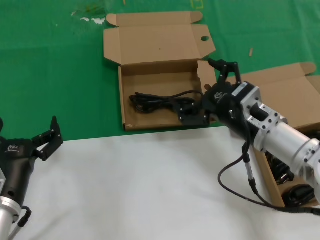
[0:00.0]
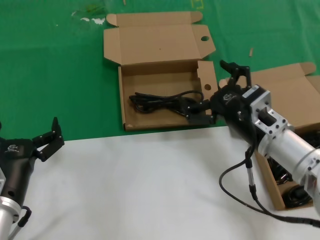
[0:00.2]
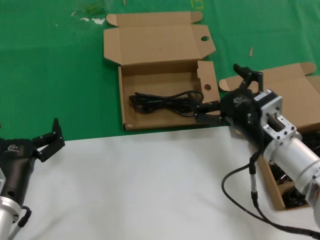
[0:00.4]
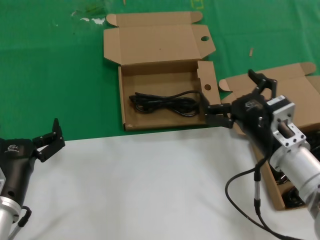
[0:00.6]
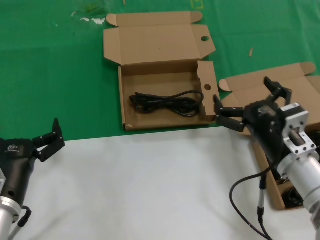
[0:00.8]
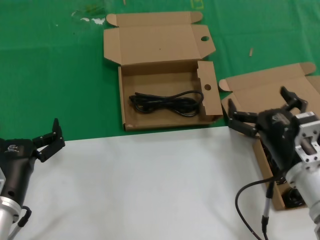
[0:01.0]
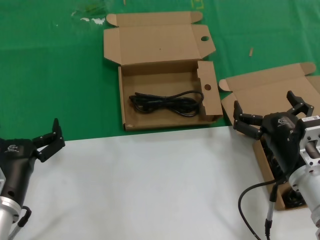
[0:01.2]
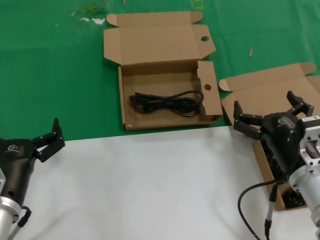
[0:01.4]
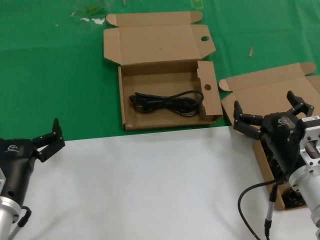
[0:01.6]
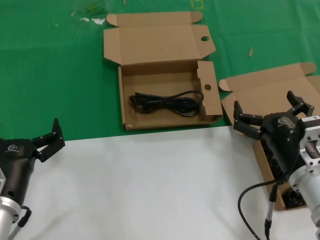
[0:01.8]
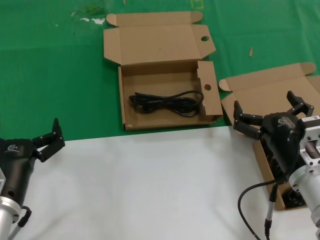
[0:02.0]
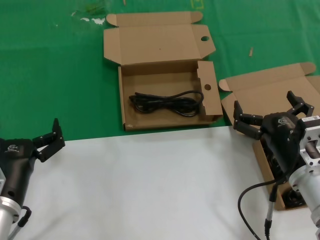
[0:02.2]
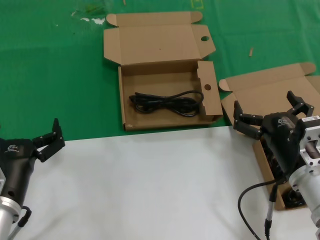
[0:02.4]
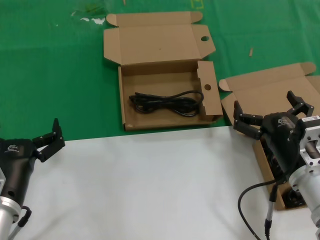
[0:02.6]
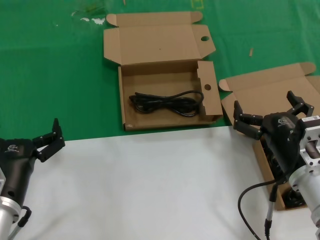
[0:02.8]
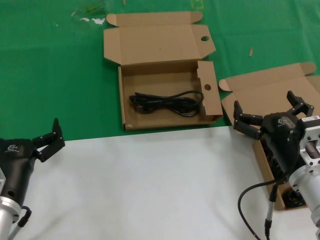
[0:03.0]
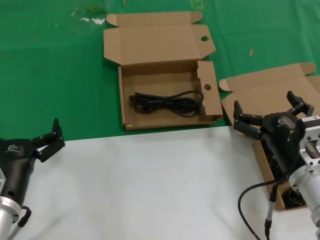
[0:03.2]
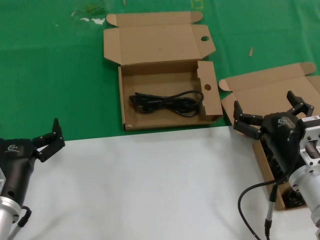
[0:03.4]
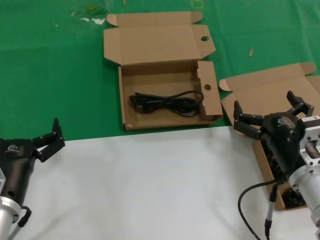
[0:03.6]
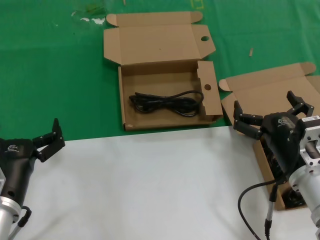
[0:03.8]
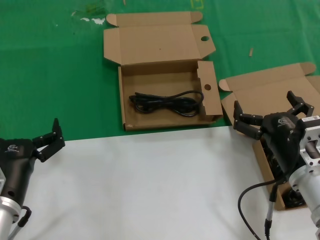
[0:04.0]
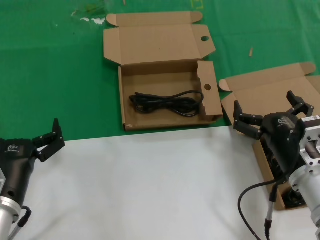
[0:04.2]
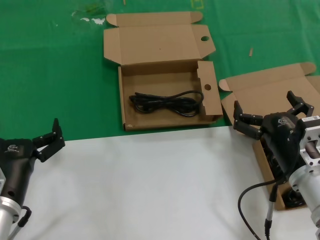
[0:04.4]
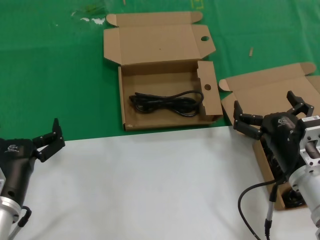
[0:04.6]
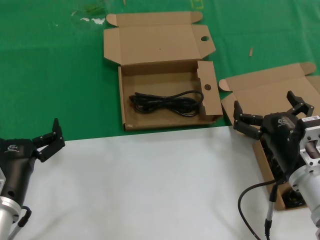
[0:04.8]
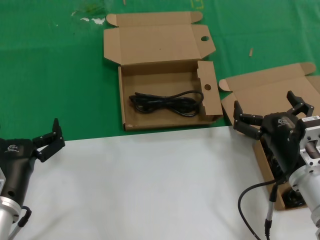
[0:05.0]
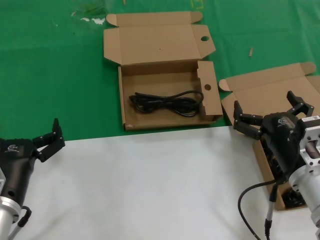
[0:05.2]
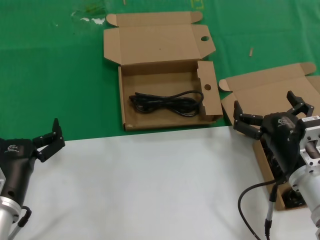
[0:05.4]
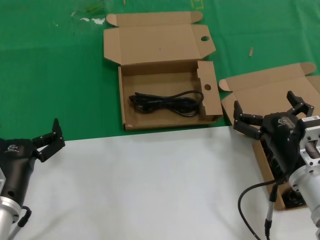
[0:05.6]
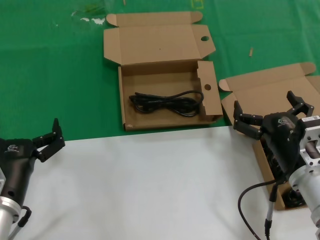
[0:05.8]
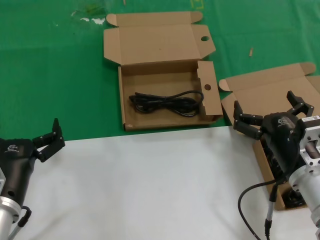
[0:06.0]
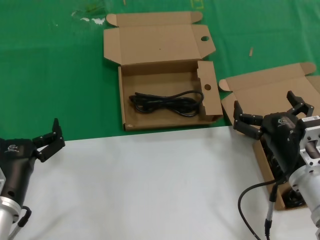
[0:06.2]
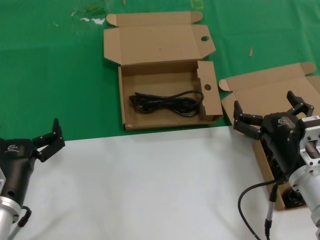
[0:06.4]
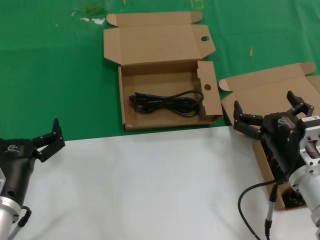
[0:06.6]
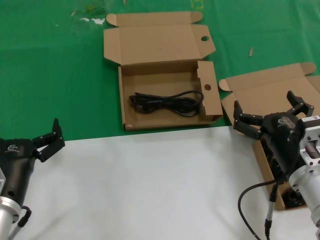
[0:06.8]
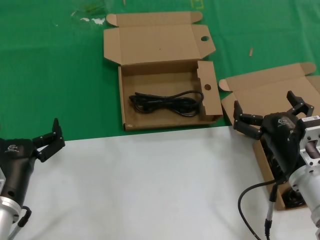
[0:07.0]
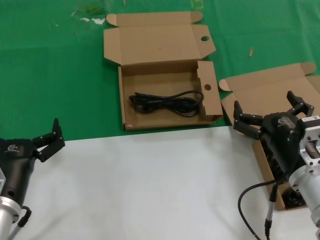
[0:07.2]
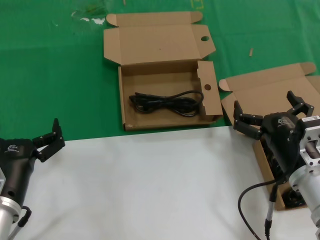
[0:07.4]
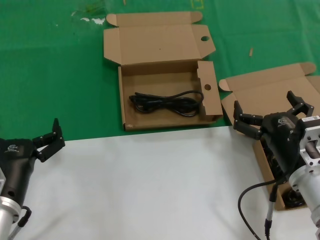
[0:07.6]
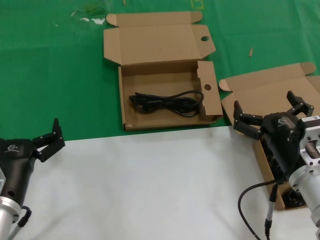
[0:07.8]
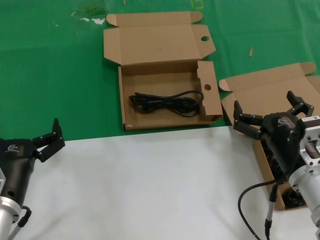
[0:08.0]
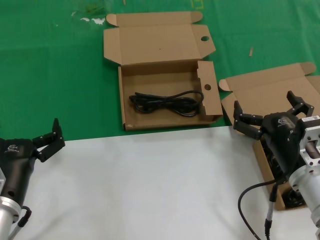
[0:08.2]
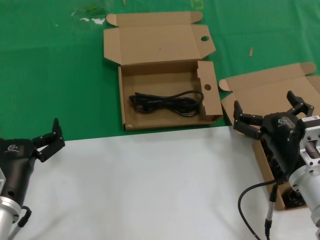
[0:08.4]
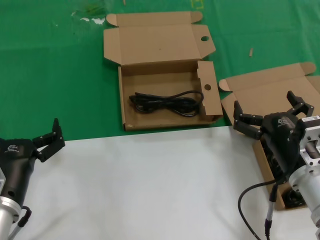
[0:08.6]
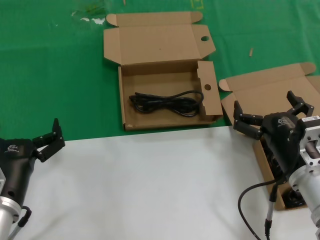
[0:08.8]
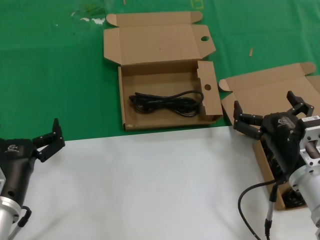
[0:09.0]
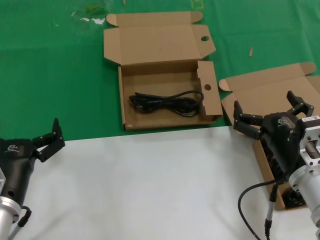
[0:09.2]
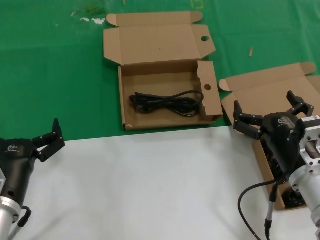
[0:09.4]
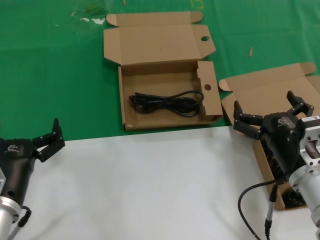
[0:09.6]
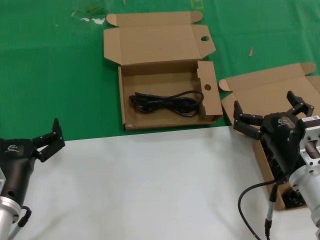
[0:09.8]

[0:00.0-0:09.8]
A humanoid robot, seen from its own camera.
Task of the whole recording: take the parts from the box containing them and put them into an empty box.
0:00.0 to 0:01.4: The right hand moves backward and downward, approximately 10 cm.
0:01.4 to 0:09.8: Both hands stay put.

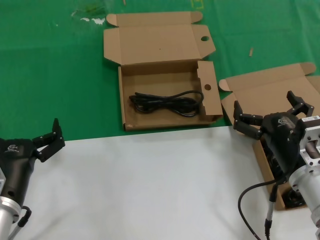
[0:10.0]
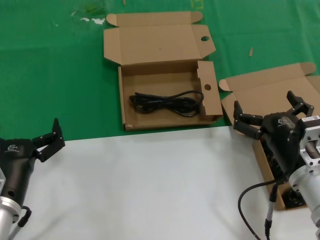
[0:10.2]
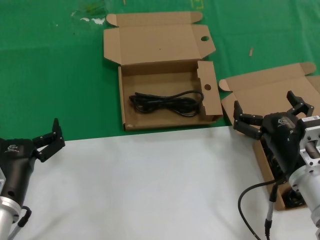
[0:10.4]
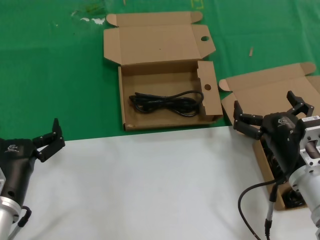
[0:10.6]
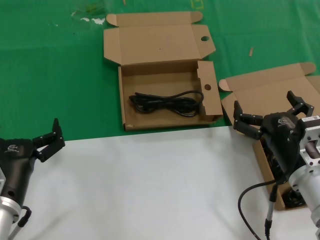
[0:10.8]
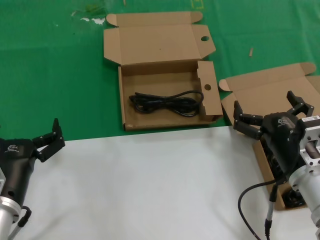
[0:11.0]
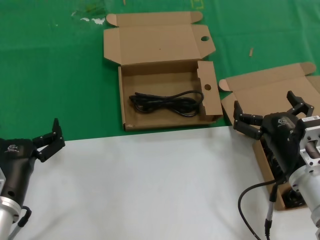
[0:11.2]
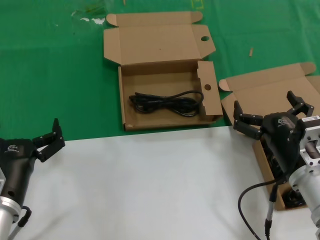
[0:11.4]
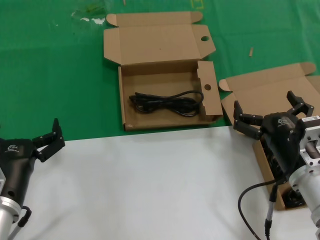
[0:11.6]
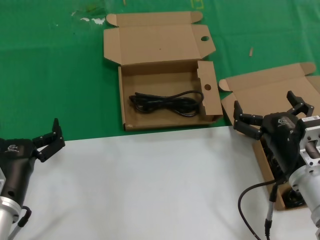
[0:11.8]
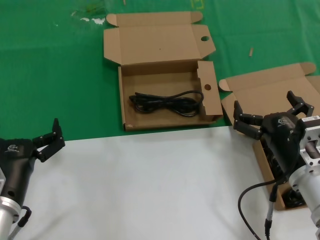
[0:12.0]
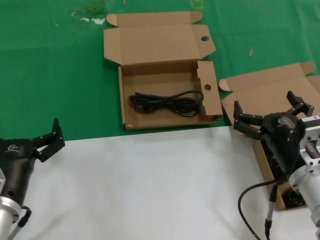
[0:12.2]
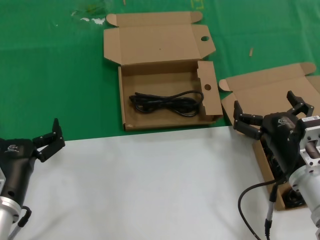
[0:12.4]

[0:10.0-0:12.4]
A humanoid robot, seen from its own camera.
Task of the whole recording: take the parts from the box containing them and put them into an empty box.
0:10.0 to 0:12.4: Both hands stay about where they are.
